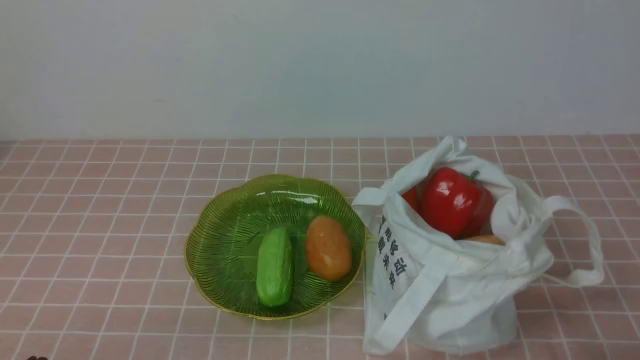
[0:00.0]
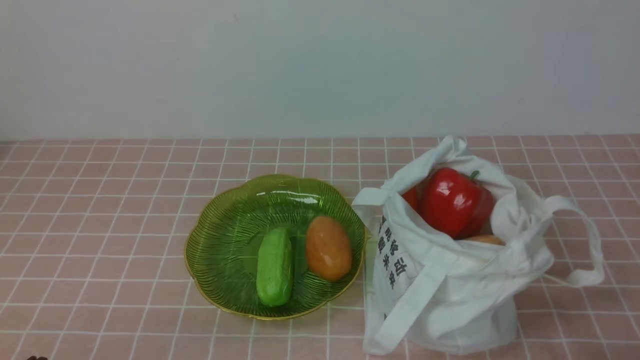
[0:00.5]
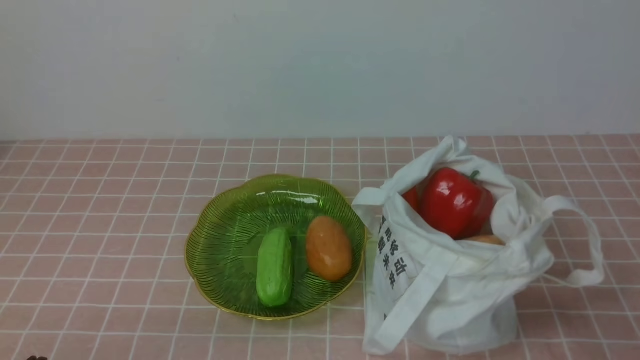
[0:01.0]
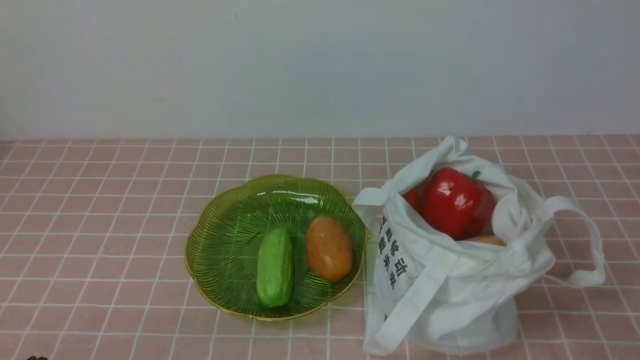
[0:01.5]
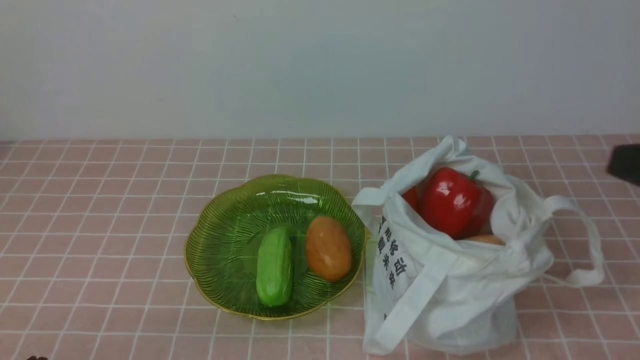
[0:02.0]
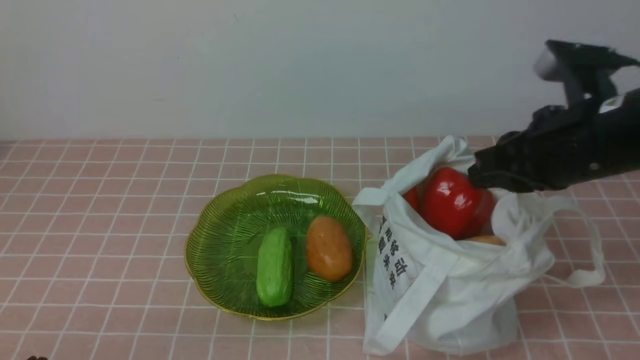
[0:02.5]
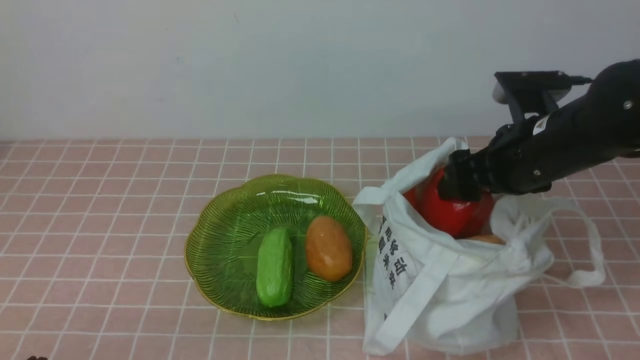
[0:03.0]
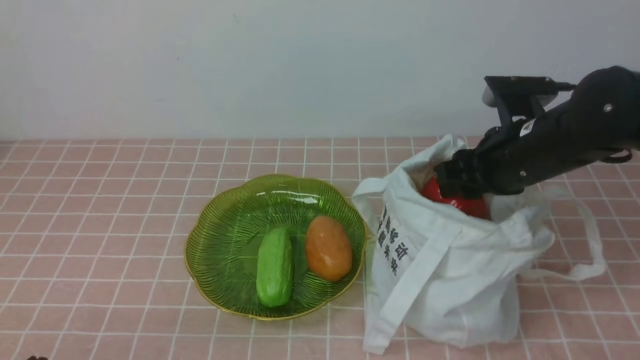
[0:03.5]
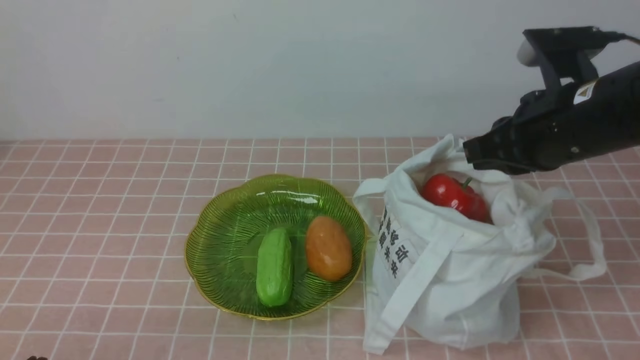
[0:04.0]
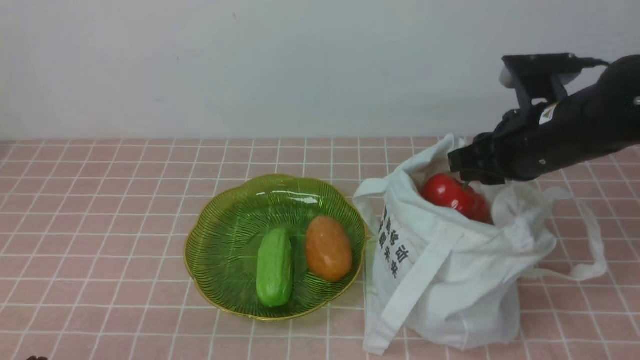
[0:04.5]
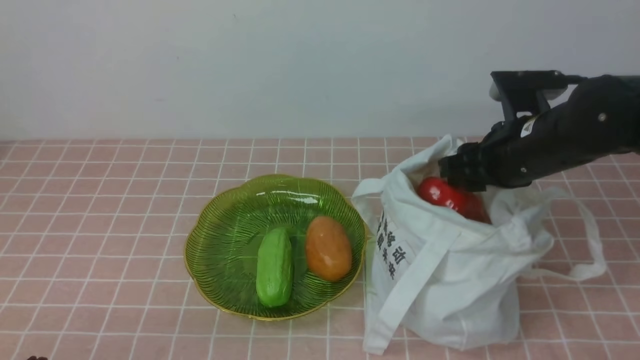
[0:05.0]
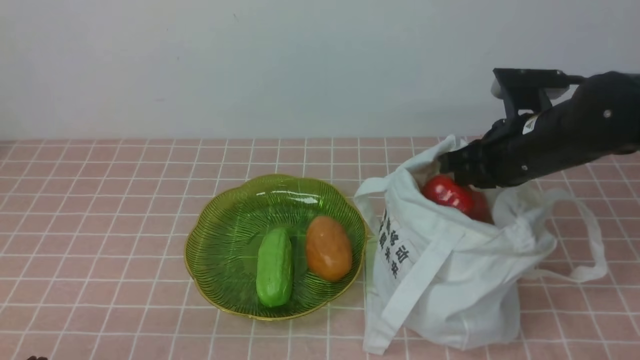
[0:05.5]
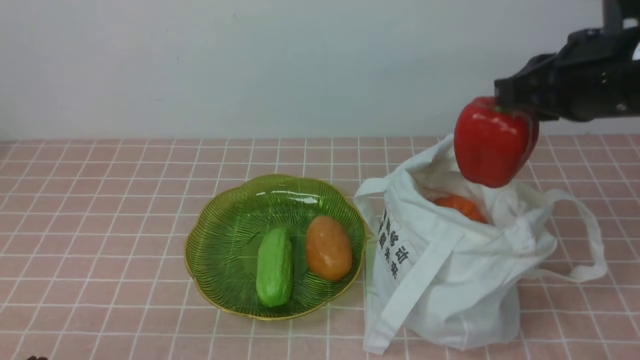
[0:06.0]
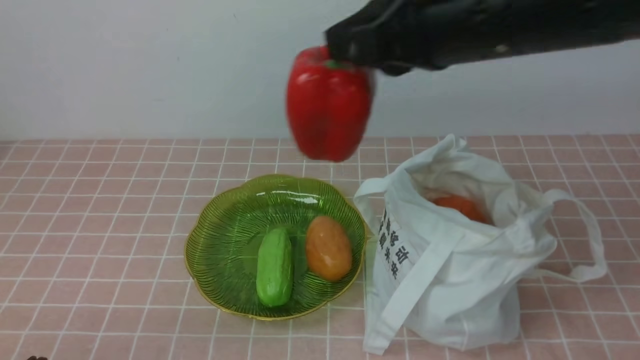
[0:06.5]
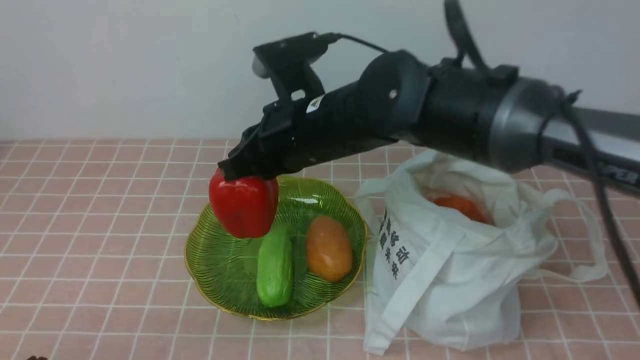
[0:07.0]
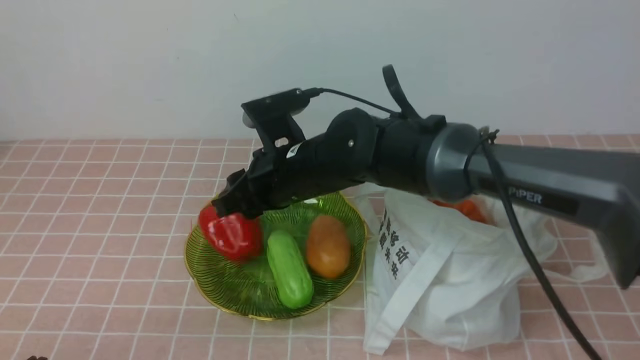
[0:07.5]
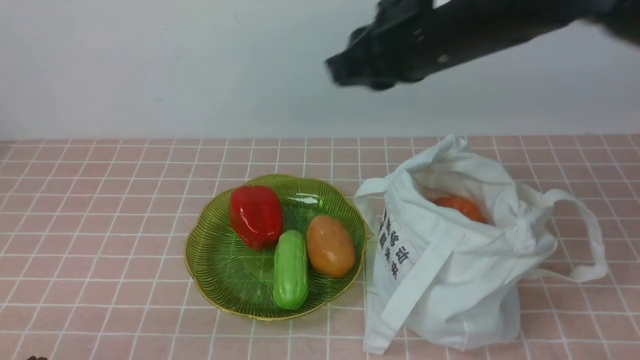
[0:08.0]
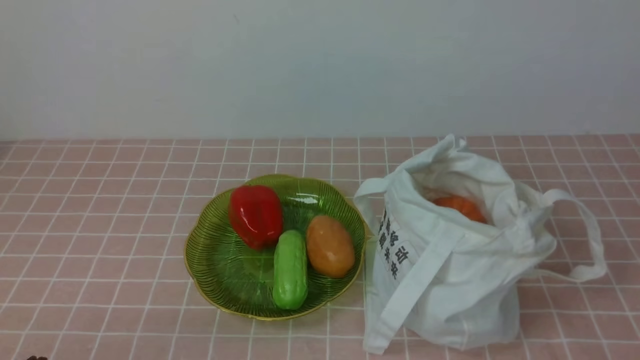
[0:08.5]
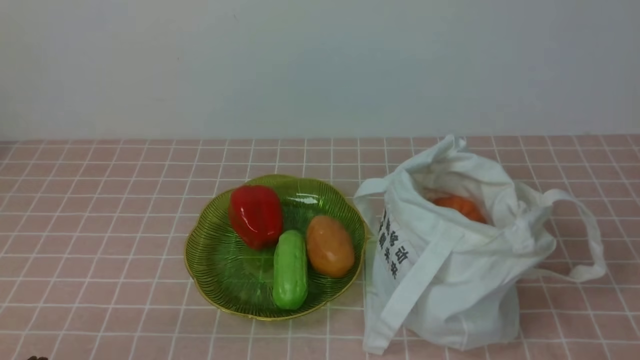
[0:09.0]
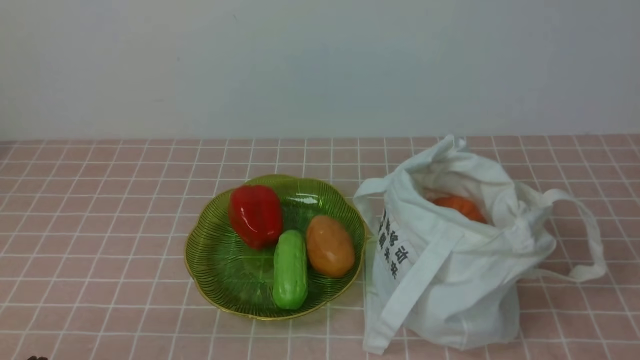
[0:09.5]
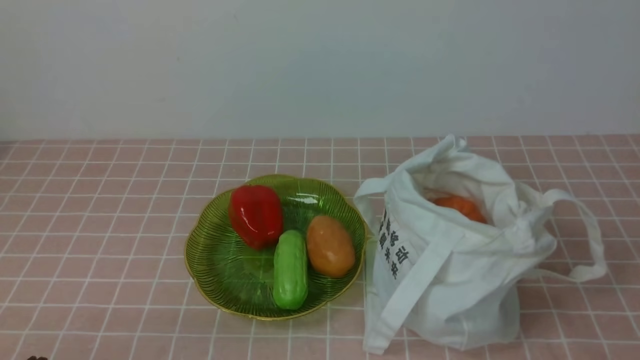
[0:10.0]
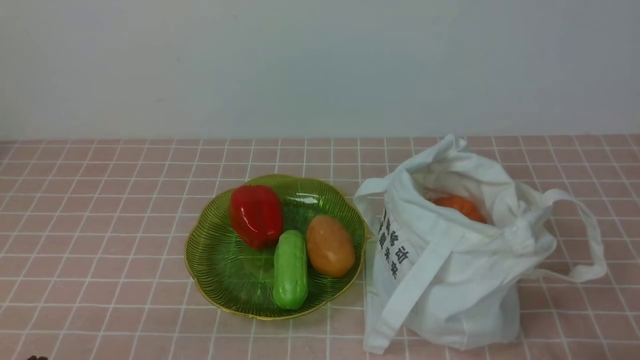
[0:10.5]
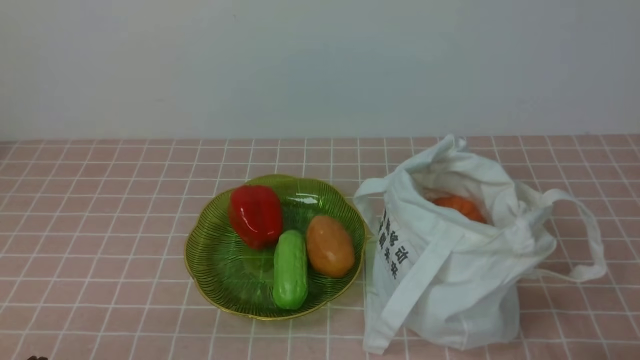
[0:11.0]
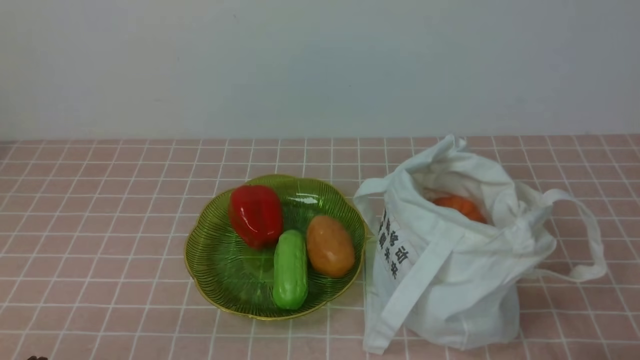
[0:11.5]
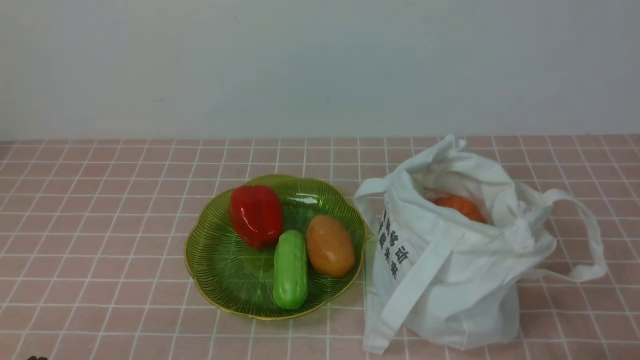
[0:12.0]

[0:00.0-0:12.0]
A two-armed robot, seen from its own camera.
Task of the whole recording: take vegetables from bag on pink coffee tablecloth place on plate.
Step, 0:00.0 to 0:05.0: Grasp the bell pepper with right gripper.
Step, 0:05.5 to 0:07.5: Place the bell pepper on the plate with right gripper.
0:02.0 to 0:04.0: The right gripper travels forward, downward and to the left by some 15 cm, and opens, then closes again.
0:04.0 to 0:06.0: The right gripper is displaced upward by roughly 5 cm, and opens and closes again.
0:06.0 to 0:08.0: The right gripper heads to the left, covering about 10 cm, and opens, then closes once more.
0:08.0 to 0:10.0: The right gripper shifts some 35 cm backward, to the right and downward.
